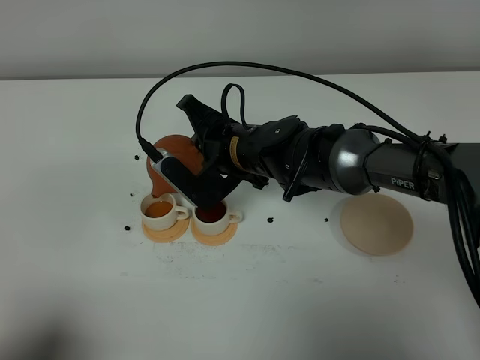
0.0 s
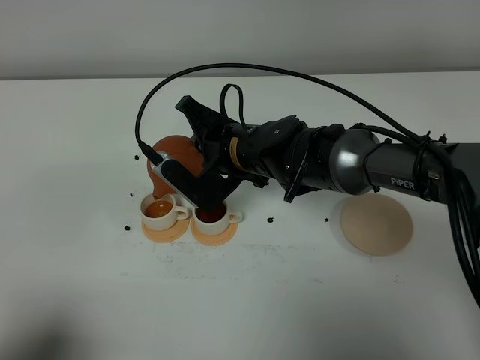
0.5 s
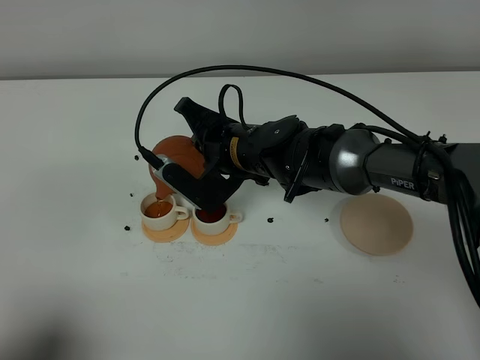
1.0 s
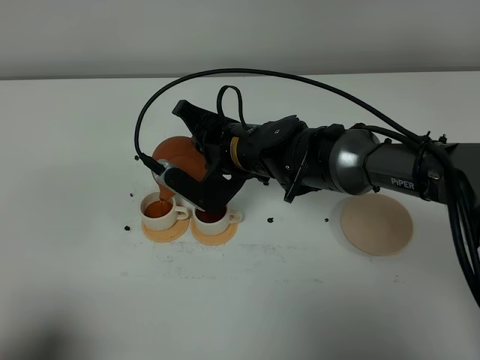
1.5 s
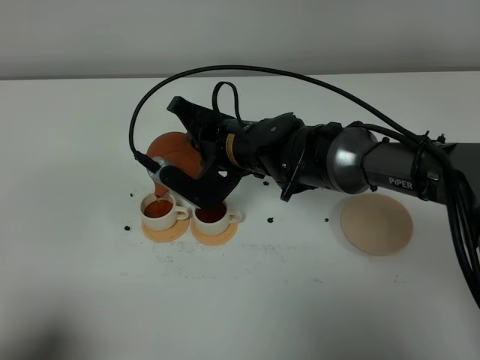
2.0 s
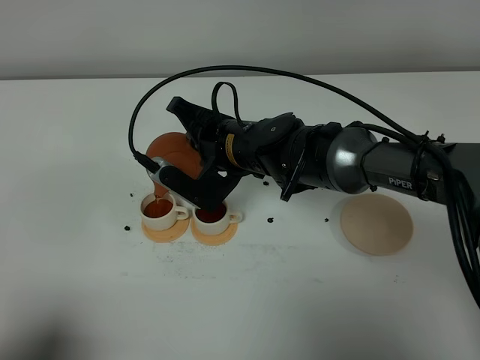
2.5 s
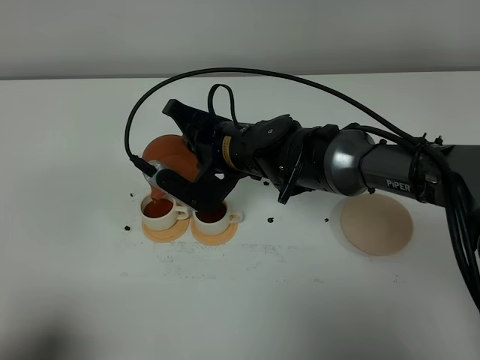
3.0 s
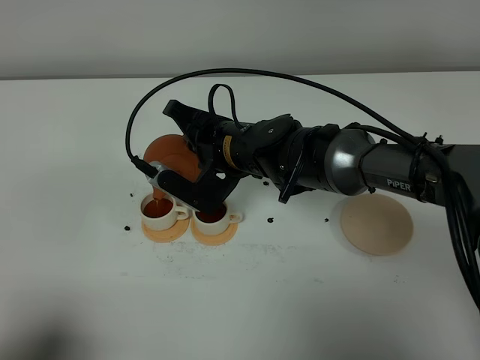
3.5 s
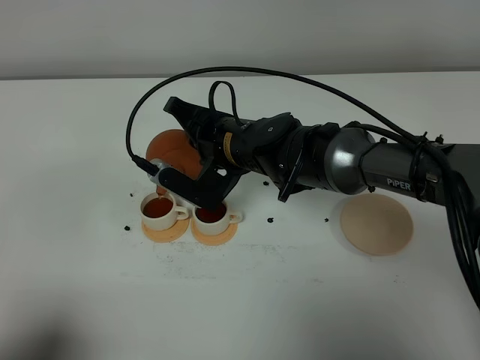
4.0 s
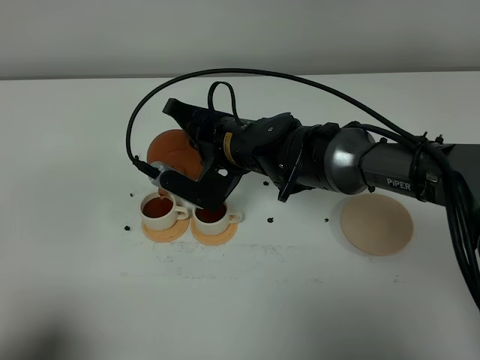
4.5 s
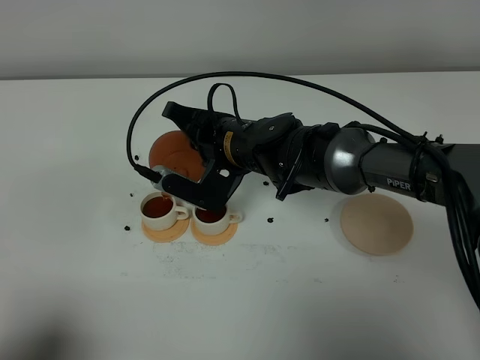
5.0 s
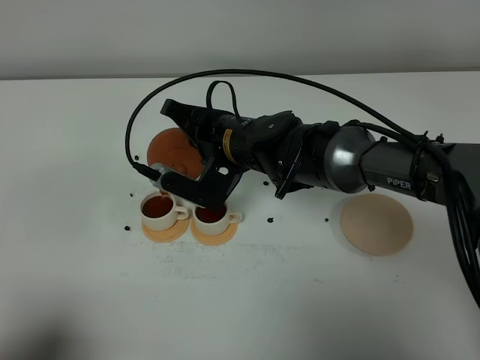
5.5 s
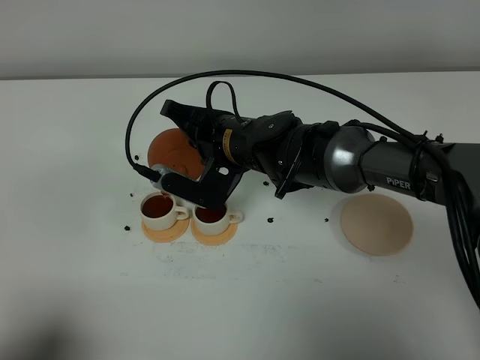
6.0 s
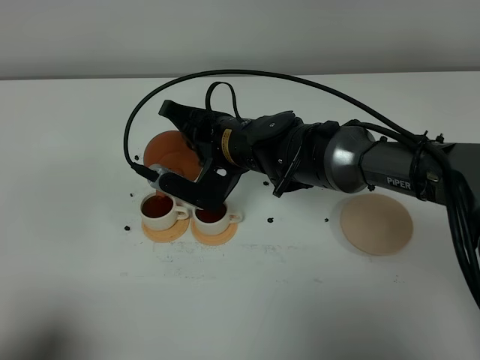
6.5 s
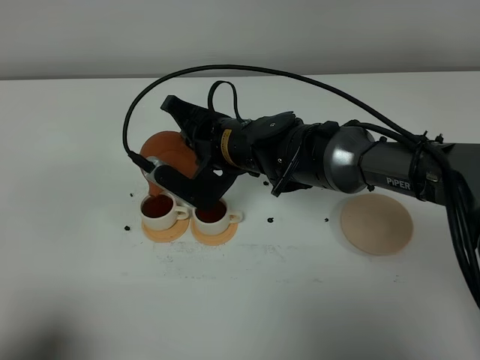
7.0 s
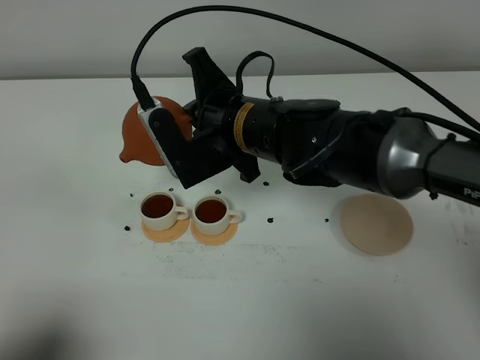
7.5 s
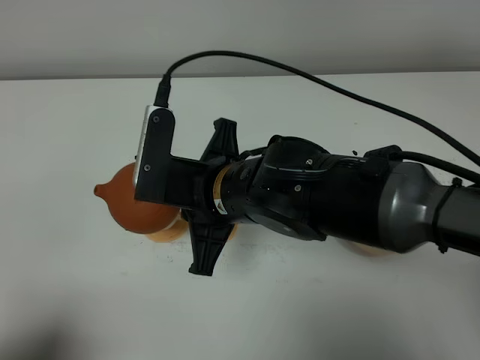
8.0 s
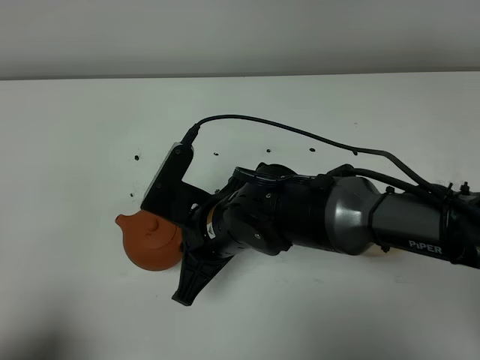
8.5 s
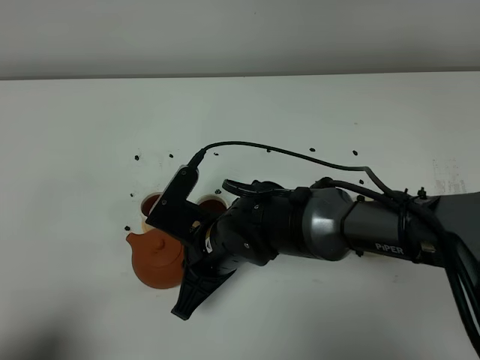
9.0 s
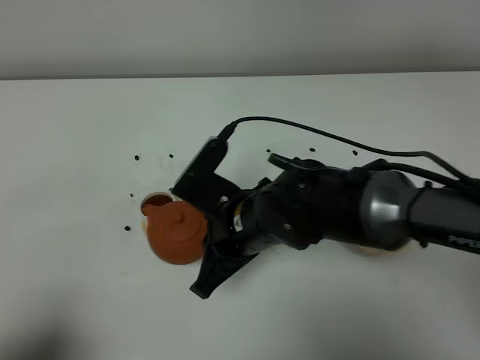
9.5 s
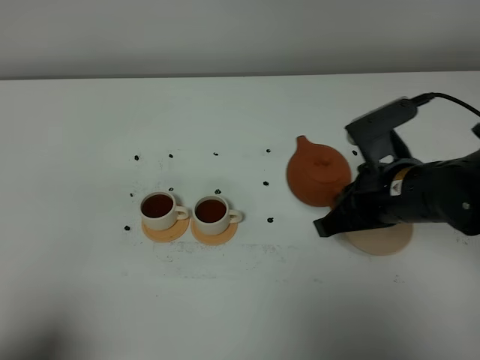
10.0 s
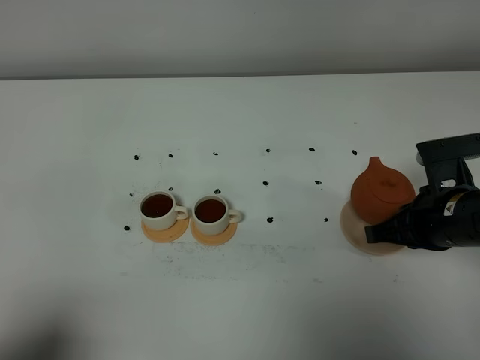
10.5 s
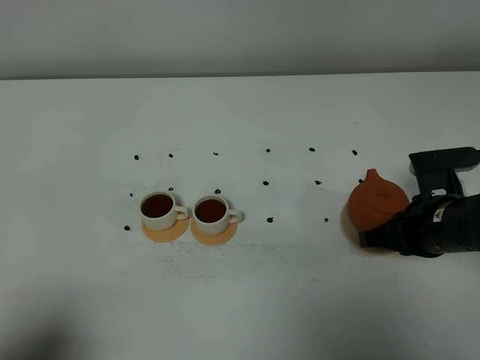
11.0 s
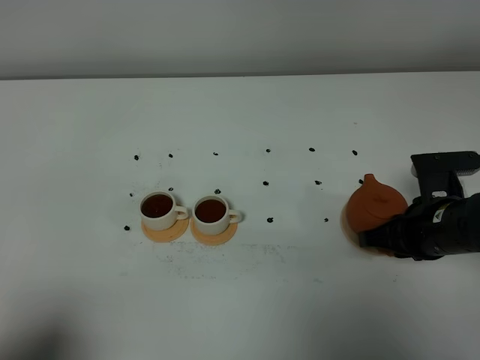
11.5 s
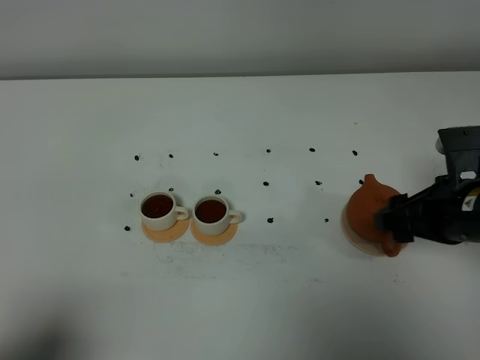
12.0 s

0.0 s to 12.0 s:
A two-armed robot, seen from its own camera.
Task of the whole recording: grasp the brown teapot and pour the tea into the two white teacups one by one, put the brown teapot back in its original place.
Step, 0.0 to 7.0 s: Pour tea into the teacup with the right gripper.
0.0 to 2.0 s: The grippers stay close to where they were, moving slightly.
2.0 to 4.0 s: The two grippers keep their place.
4.0 to 6.0 s: The grippers move only a little.
6.0 to 8.0 s: The right gripper shifts some 10 cm backward.
8.0 to 10.0 s: The right gripper goes approximately 20 cm to the right.
10.0 to 12.0 s: The right gripper moves to the right, approximately 5 cm, and opens up.

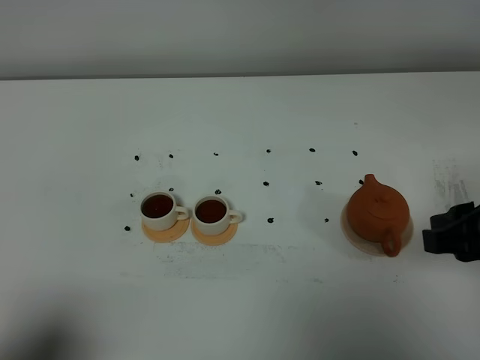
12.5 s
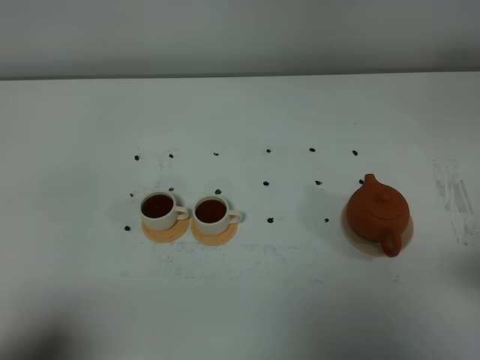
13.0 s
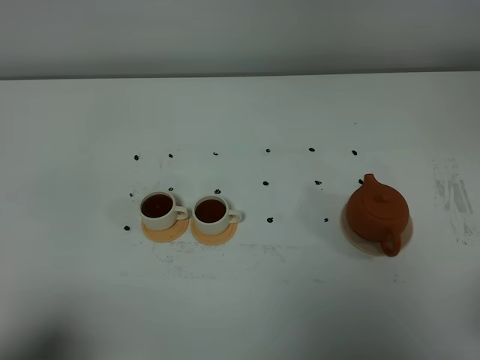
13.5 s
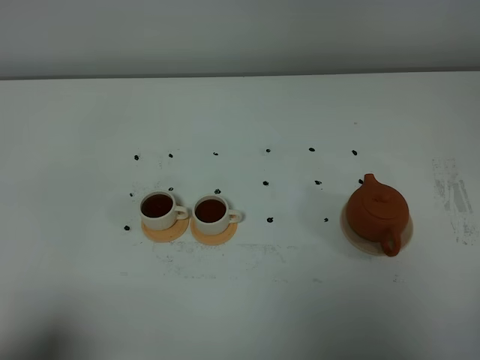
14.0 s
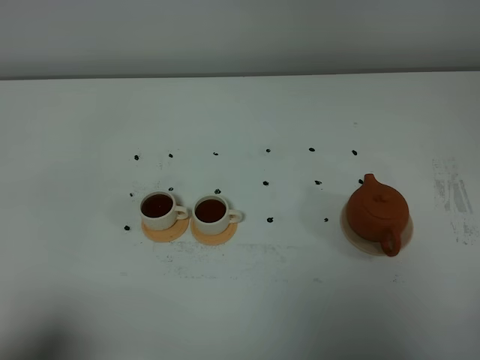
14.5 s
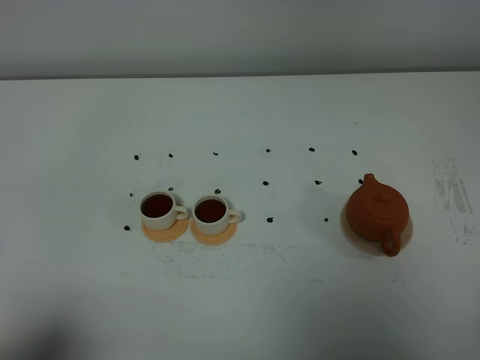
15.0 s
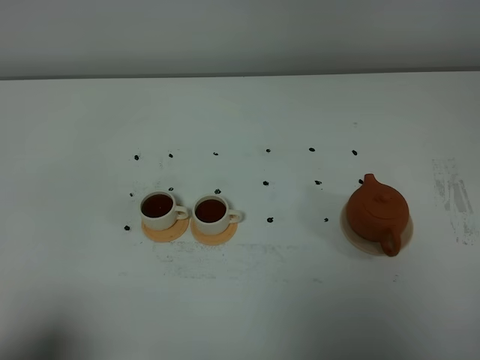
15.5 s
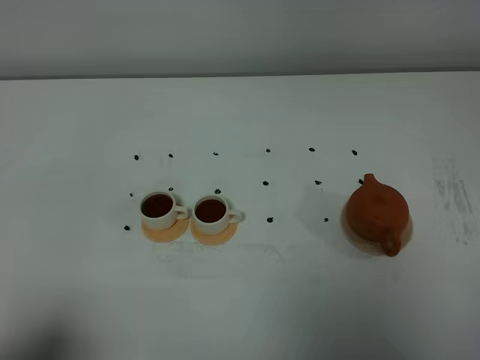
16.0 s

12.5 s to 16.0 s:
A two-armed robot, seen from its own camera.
Task of the whole recording: grasp the brown teapot and pour the tea into the two white teacups one by one, put the brown teapot back in its original place.
12.5 to 14.5 s: The right gripper moves backward, roughly 15 cm, and closes its fingers.

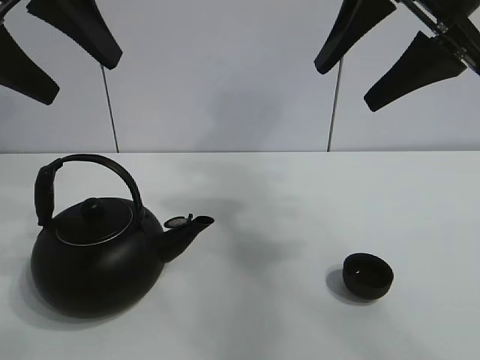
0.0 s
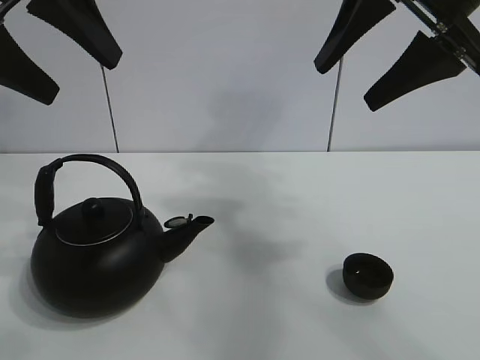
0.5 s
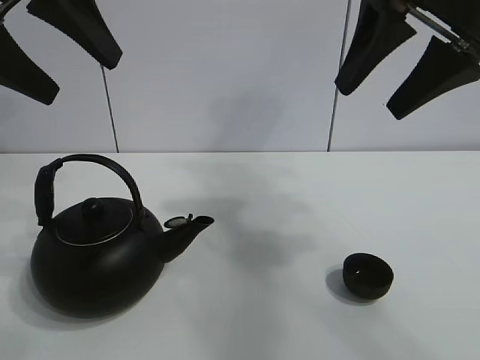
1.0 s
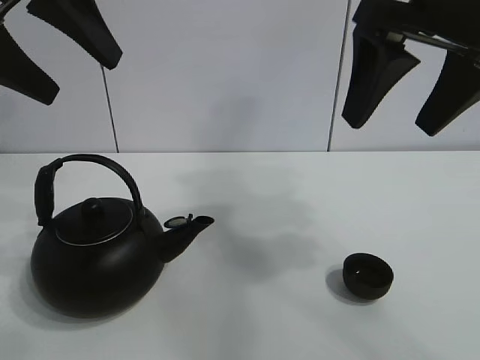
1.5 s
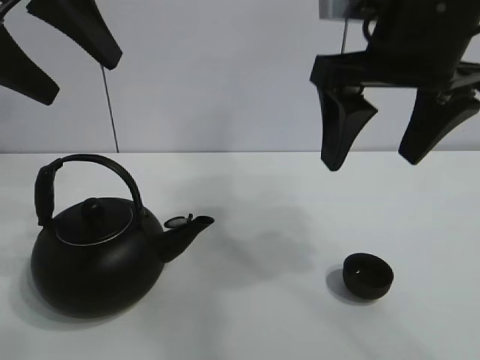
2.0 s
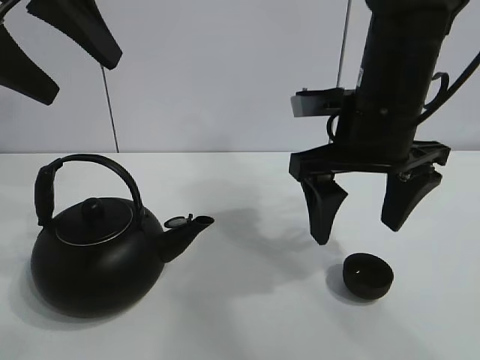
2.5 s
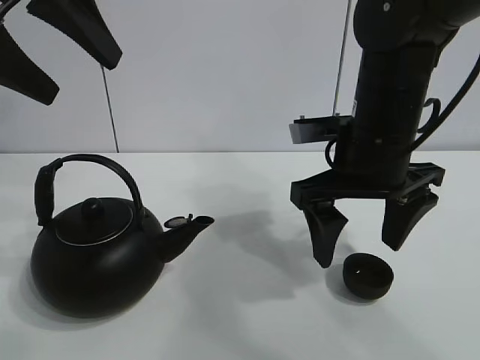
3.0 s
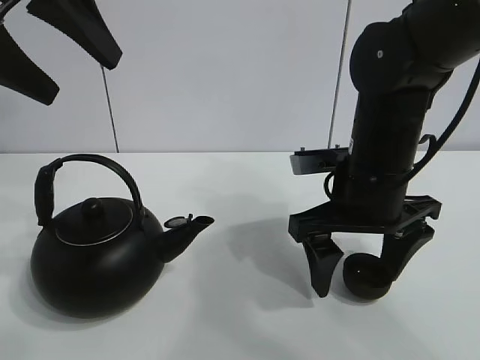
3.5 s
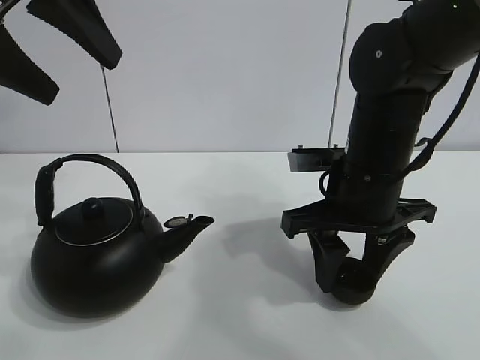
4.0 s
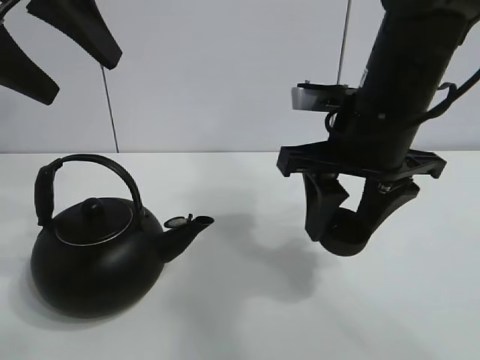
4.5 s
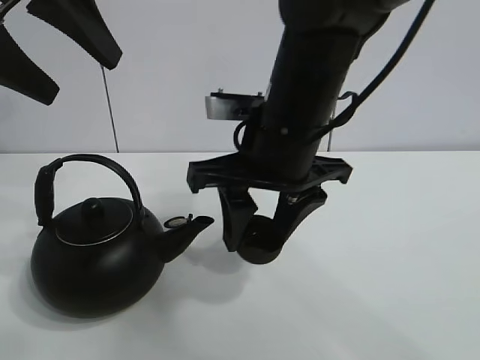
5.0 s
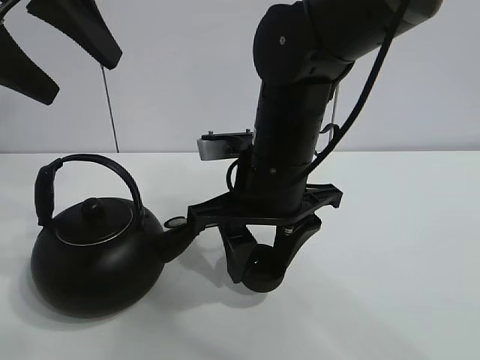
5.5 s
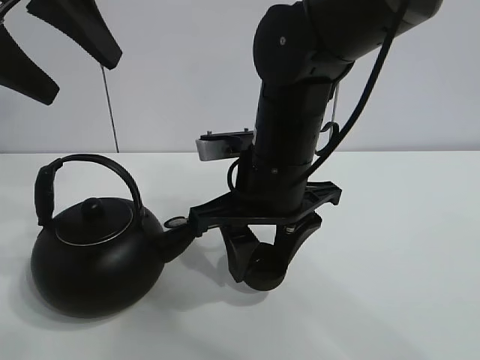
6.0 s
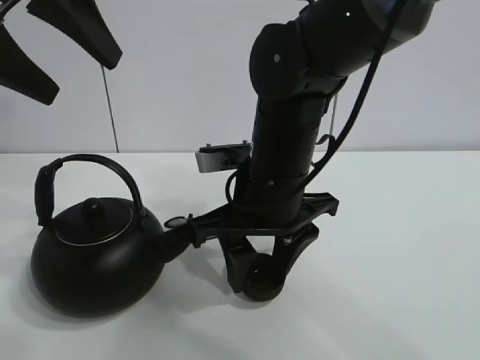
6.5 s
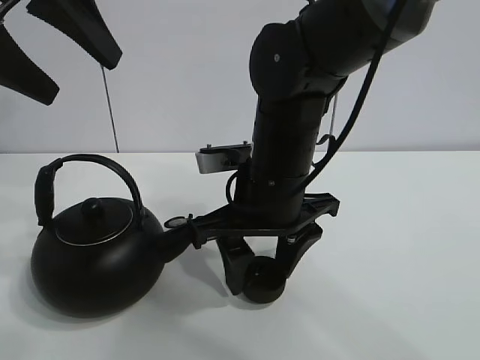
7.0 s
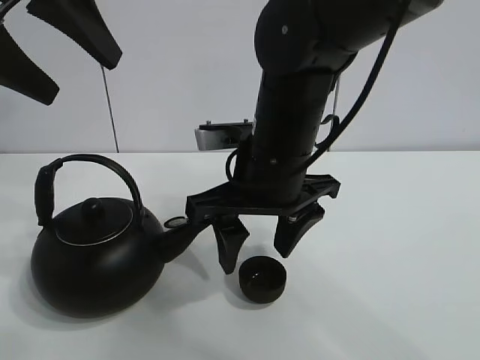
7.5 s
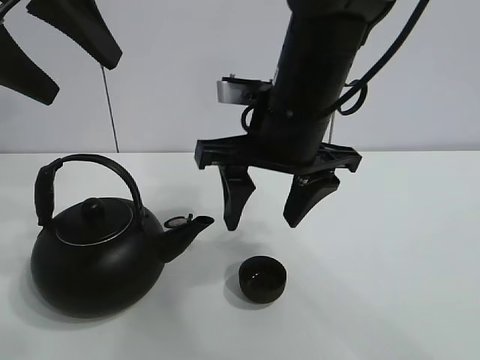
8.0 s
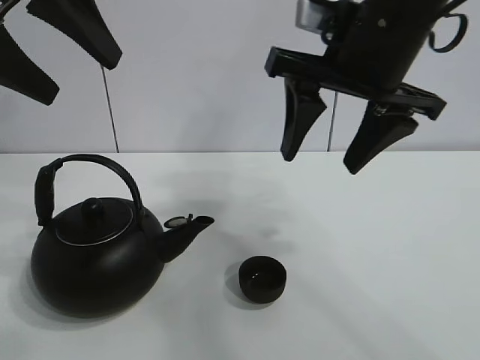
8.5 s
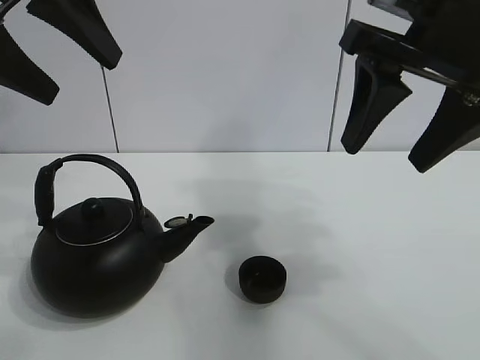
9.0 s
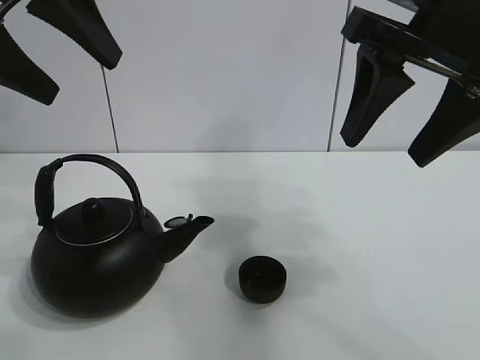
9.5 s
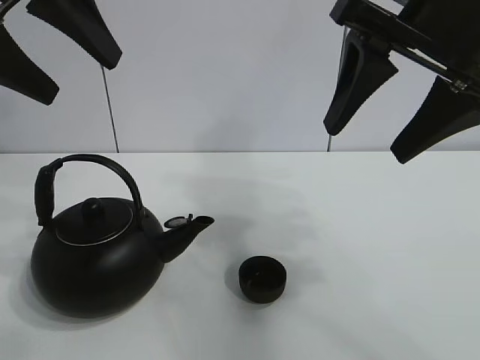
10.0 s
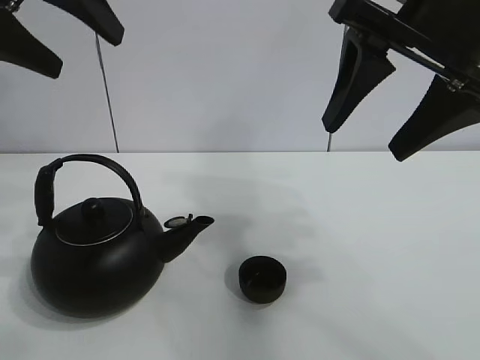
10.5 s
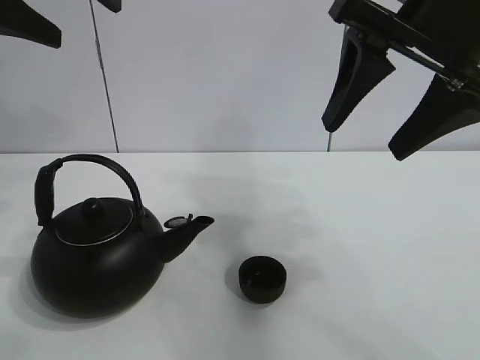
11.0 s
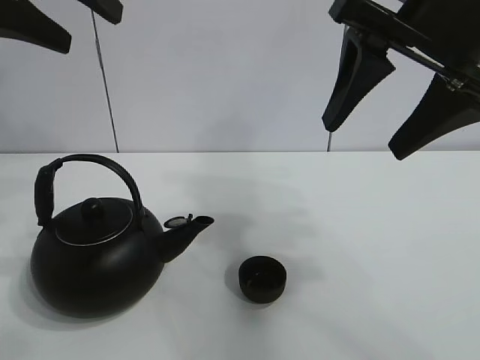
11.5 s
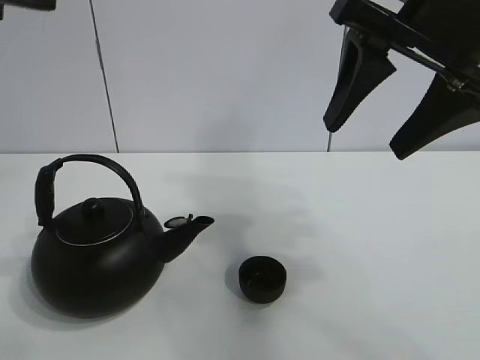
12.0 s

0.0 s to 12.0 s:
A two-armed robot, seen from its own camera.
Task of the whole recording: pour tea into the teacup.
Step, 0.0 to 3.5 s: Pick up the teacup with the right gripper.
Step, 4.0 to 7.0 s: Place the teacup in the center of view with the right gripper.
2.0 to 4.0 s: The right gripper is displaced downward by roughly 15 cm, and closes.
4.0 to 6.0 s: The right gripper travels to the left by some 10 cm.
6.0 to 8.0 s: The right gripper opens up.
8.0 to 10.0 s: The right gripper moves to the right and upward, roughly 15 cm.
10.0 to 12.0 s: The left gripper shifts some 5 cm backward.
